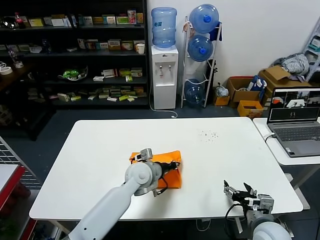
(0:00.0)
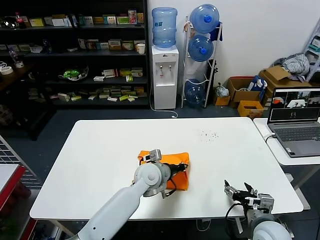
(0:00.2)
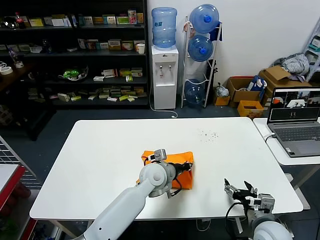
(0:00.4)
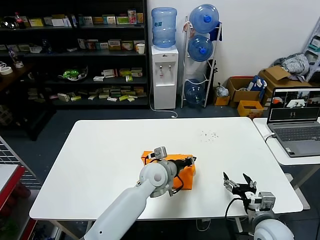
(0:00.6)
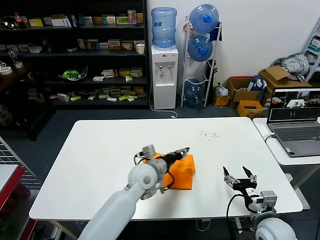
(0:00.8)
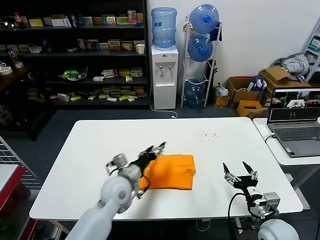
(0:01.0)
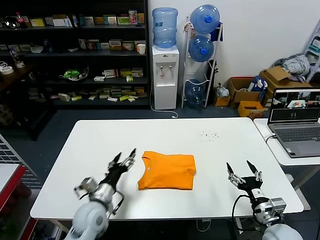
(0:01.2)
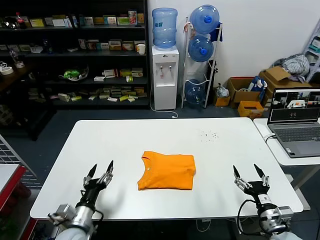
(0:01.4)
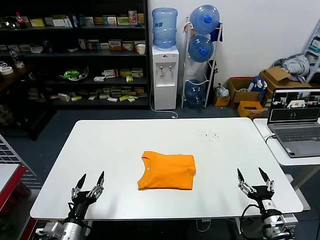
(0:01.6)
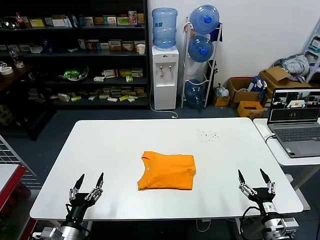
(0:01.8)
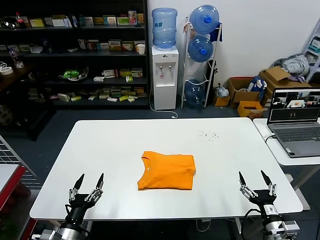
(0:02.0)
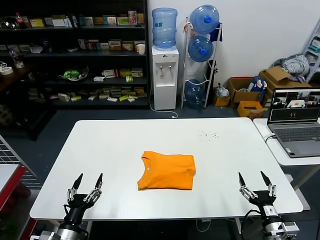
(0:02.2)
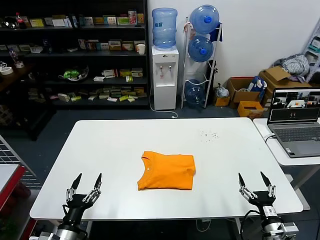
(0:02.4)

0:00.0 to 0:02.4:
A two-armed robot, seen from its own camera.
Task of the whole recording: fold and organize the clothes.
0:00.0 to 0:01.2: The left gripper is displaced to the left and backward by roughly 15 cm, and opens.
0:01.2 to 0:02.4: The left gripper moves backward and to the left, roughly 20 cm. The right gripper is displaced backward by some 5 cm.

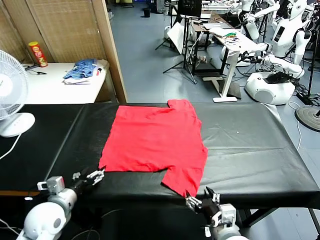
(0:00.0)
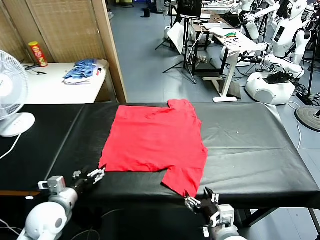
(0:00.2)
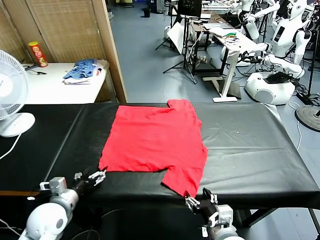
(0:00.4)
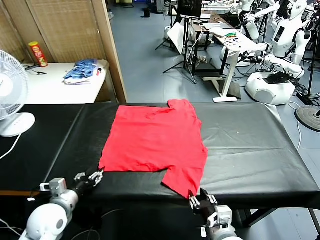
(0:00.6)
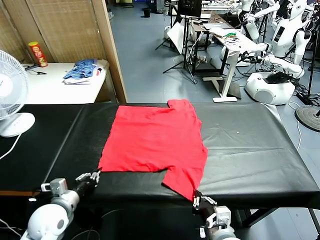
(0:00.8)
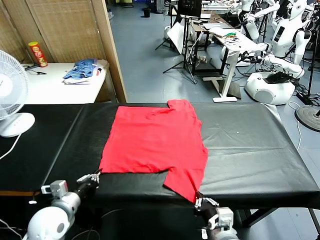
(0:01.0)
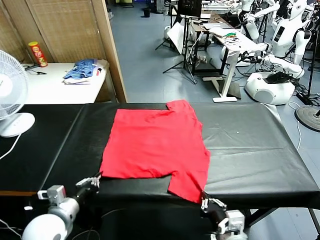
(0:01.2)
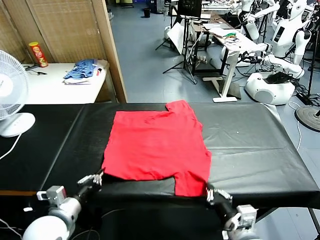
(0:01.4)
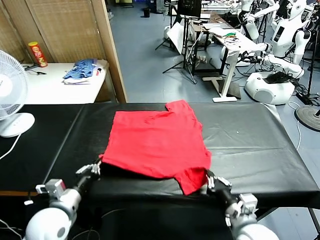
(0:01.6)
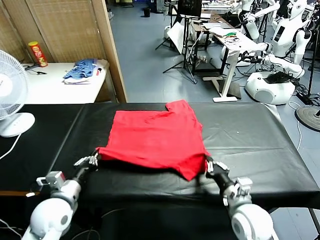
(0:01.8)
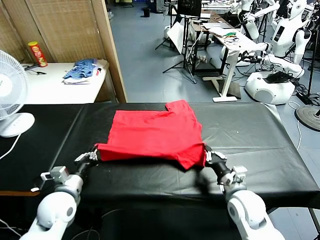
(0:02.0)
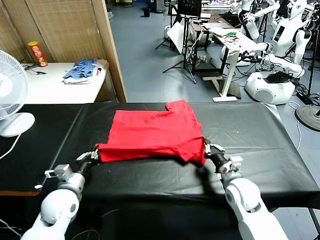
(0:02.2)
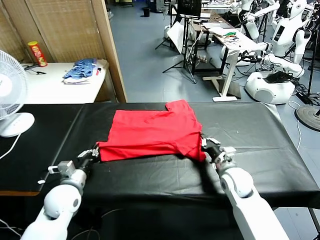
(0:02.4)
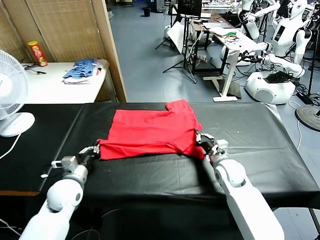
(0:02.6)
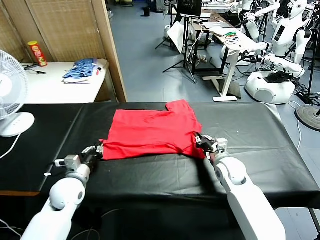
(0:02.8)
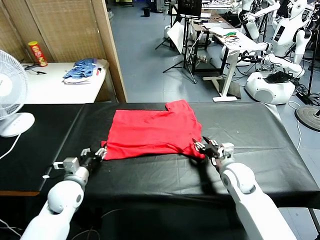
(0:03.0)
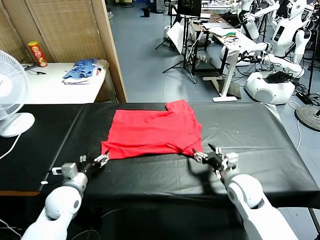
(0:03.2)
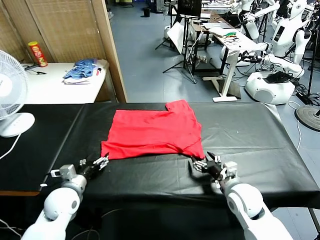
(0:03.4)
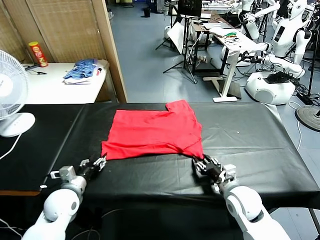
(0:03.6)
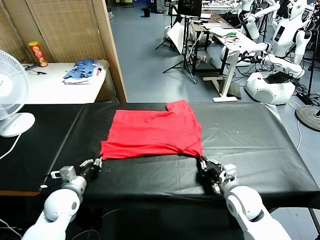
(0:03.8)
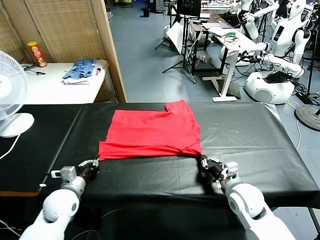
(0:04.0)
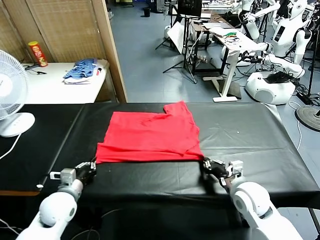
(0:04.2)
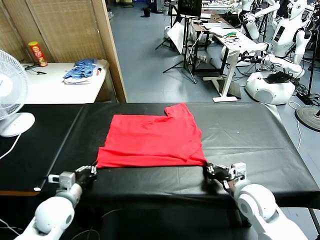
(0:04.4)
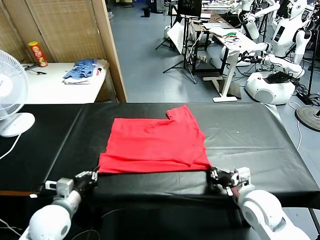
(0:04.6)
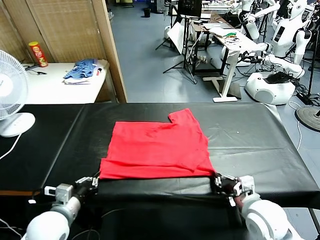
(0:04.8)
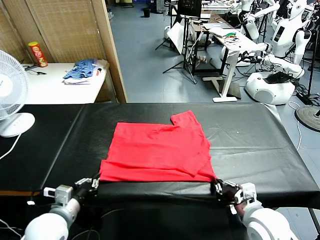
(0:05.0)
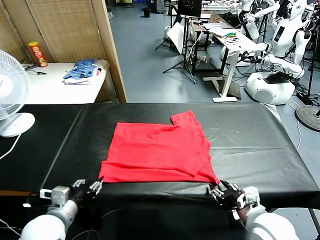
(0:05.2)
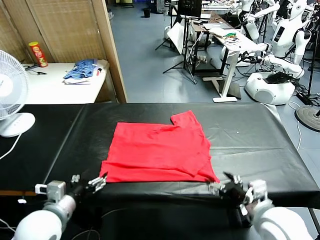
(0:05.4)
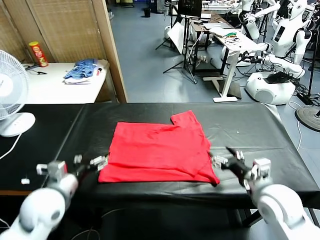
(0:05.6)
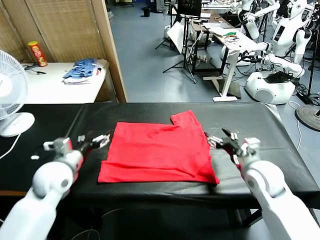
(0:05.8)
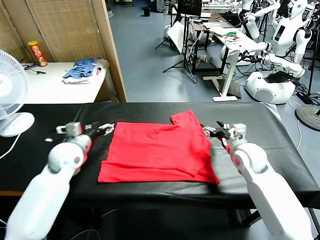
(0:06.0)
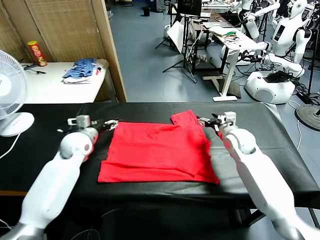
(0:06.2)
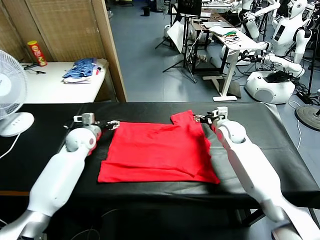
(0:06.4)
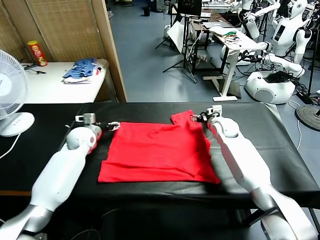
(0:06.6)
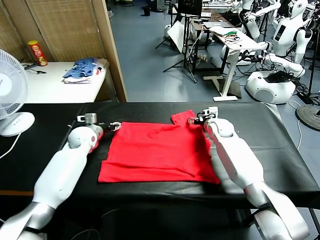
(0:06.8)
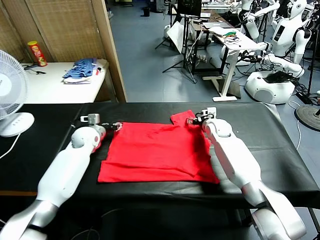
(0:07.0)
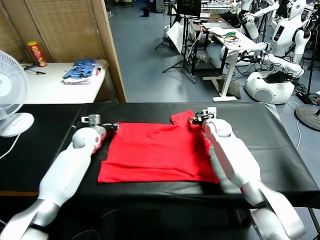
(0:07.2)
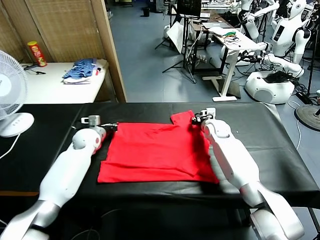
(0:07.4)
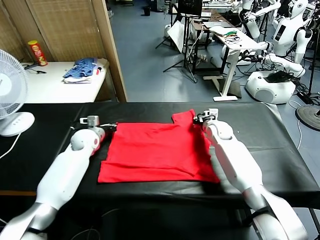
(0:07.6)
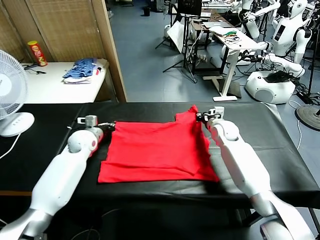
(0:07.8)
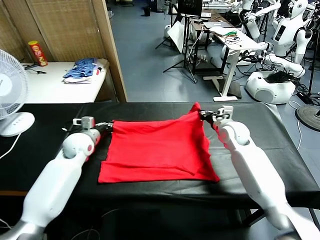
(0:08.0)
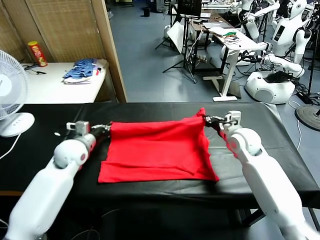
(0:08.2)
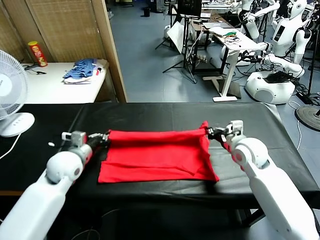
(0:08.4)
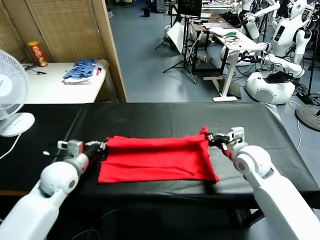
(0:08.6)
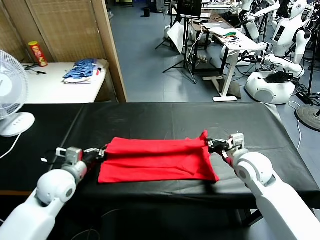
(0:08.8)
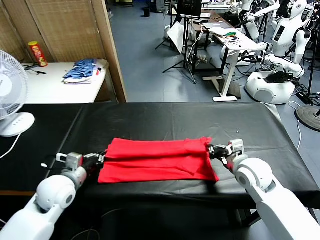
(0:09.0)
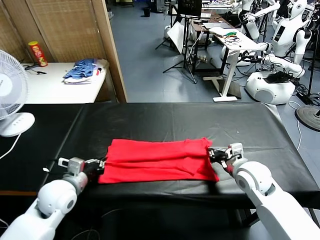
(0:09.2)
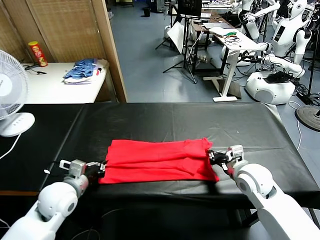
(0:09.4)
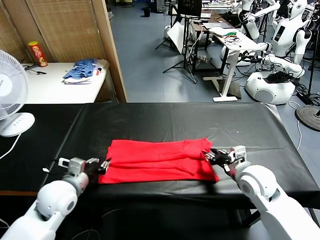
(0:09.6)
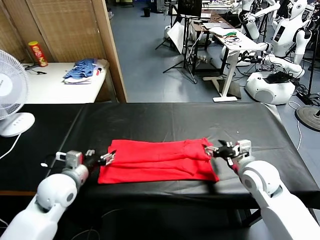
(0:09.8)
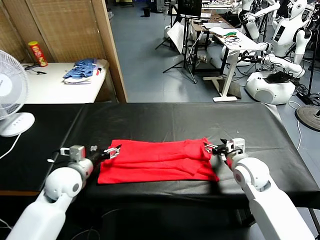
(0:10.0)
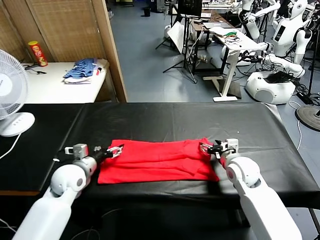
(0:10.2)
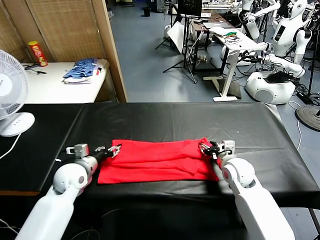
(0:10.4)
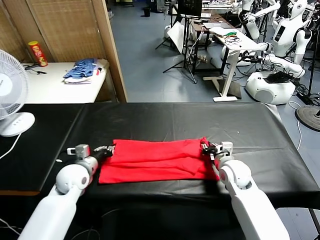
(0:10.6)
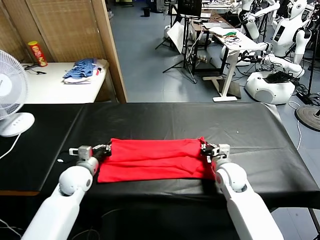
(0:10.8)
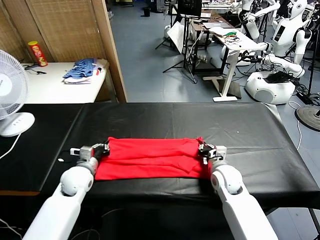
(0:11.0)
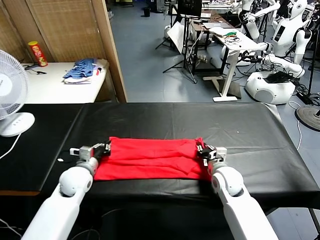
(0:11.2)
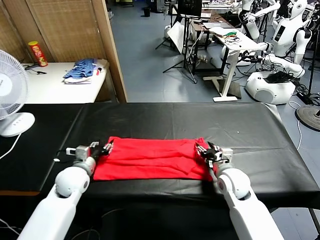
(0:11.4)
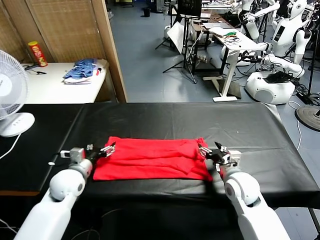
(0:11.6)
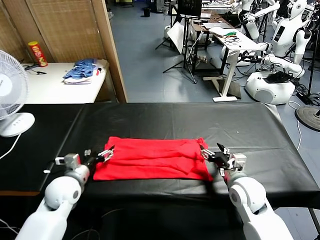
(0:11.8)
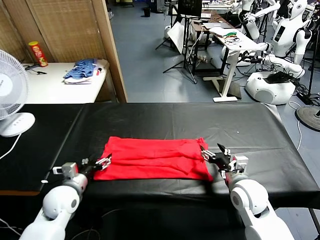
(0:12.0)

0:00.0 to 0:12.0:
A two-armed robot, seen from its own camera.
Task of the whole recording: fold and organize the clothes.
Step, 0:00.0 to 0:00.8: use both grippers simultaneously to clamp the lower edge of the clothing fabric.
Step, 0:01.2 to 0:03.0: use both grippers to drag the lower edge of the fabric forward and fold it over the upper edge.
Step, 0:03.2 to 0:05.2: Drag the clothes downward with both gripper.
Step, 0:05.4 to 0:07.4: use both grippers simultaneously to clamp the upper edge of the clothing fabric.
Step, 0:07.8 to 0:09.6: use both grippers to drag the upper edge of the fabric backward and fold it over the lower edge.
0:01.6 to 0:03.0: The two grippers go roughly 5 cm forward. The right gripper opens its fingers, while the left gripper opens up.
0:03.0 to 0:04.4: The two grippers go some 5 cm backward. The left gripper closes up. The right gripper closes.
0:04.4 to 0:06.0: The right gripper is displaced forward by about 25 cm, and opens up, while the left gripper heads forward and upward, covering approximately 20 cm, and opens.
0:06.0 to 0:07.6: The right gripper heads forward, covering approximately 5 cm, and closes up. The left gripper is displaced forward and downward by some 10 cm, and closes its fingers.
0:07.6 to 0:09.0: The grippers both shift backward by some 20 cm.
0:09.0 to 0:10.4: The left gripper goes approximately 5 cm forward, and opens up. The right gripper shifts roughly 5 cm downward, and opens its fingers.
0:10.4 to 0:12.0: The grippers both shift backward by approximately 10 cm. The right gripper opens its fingers, while the left gripper opens its fingers.

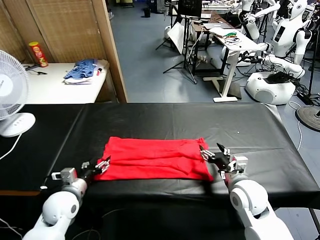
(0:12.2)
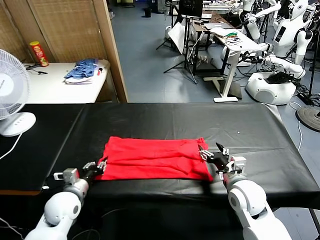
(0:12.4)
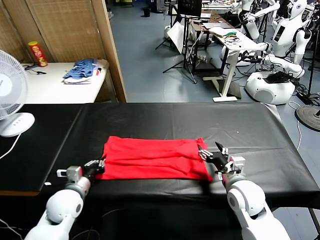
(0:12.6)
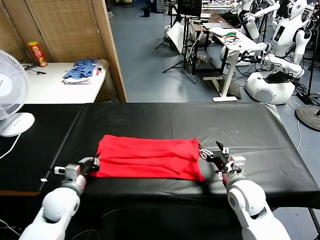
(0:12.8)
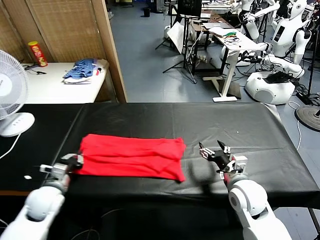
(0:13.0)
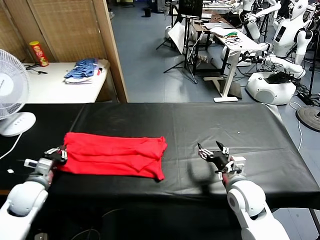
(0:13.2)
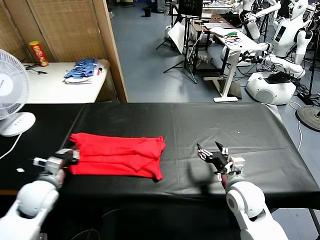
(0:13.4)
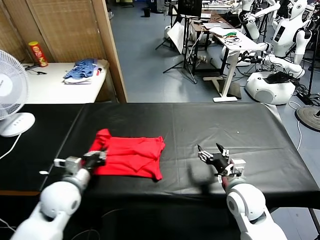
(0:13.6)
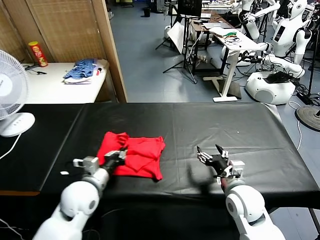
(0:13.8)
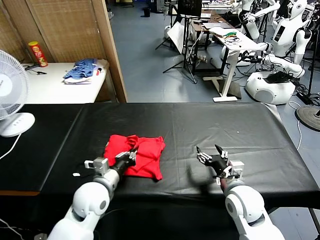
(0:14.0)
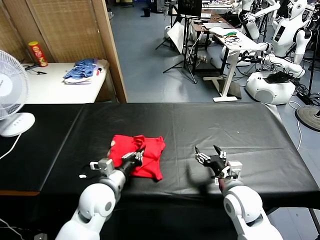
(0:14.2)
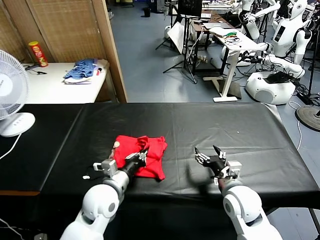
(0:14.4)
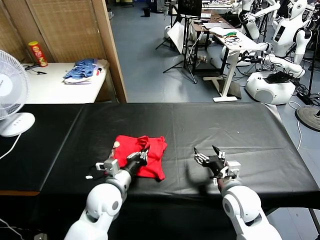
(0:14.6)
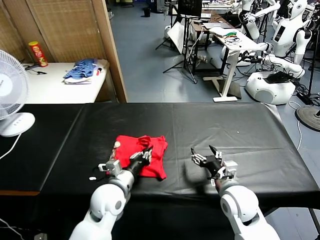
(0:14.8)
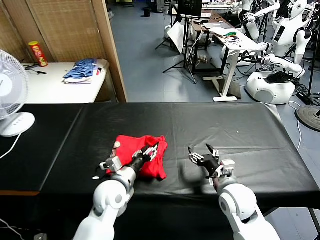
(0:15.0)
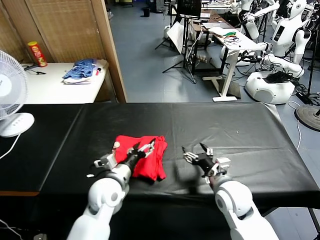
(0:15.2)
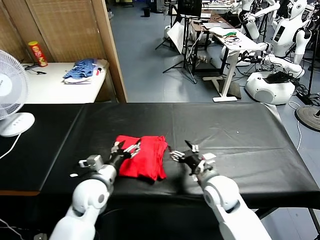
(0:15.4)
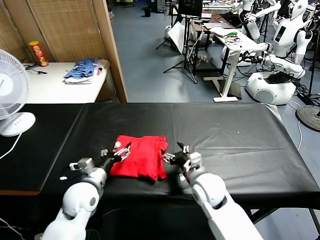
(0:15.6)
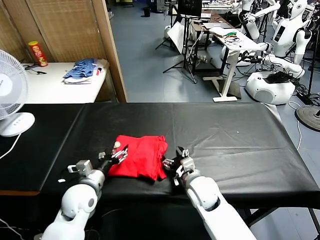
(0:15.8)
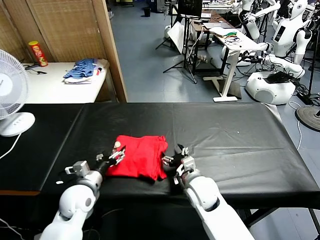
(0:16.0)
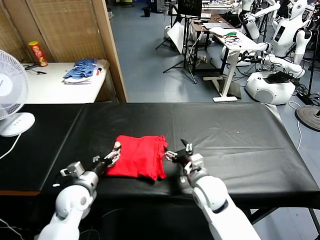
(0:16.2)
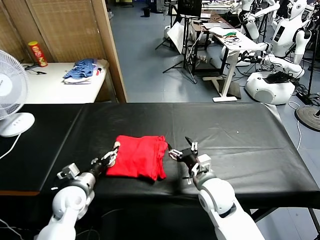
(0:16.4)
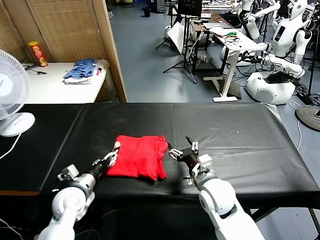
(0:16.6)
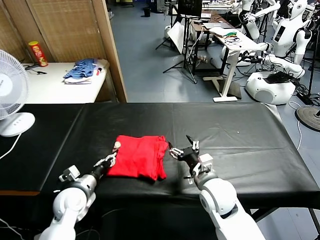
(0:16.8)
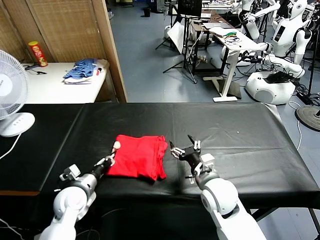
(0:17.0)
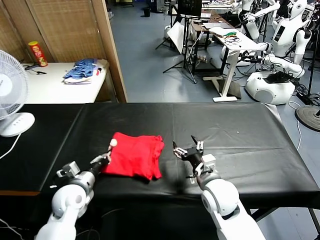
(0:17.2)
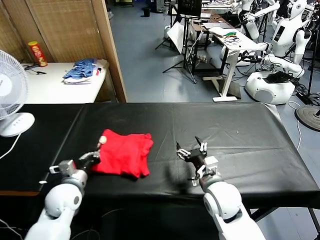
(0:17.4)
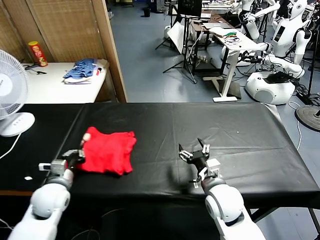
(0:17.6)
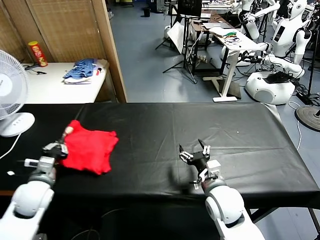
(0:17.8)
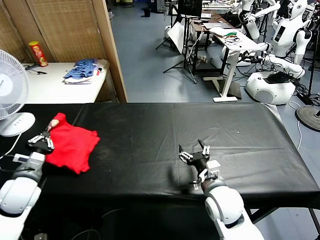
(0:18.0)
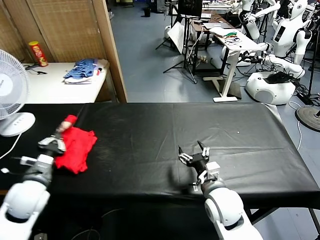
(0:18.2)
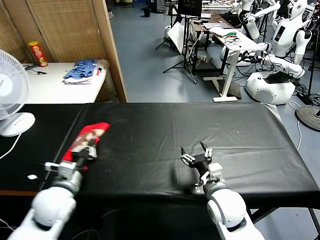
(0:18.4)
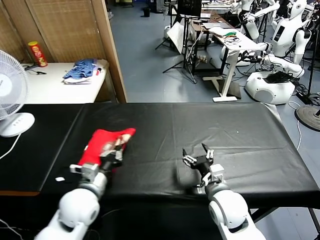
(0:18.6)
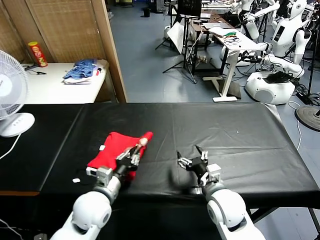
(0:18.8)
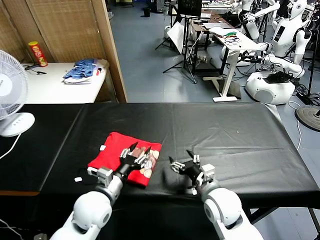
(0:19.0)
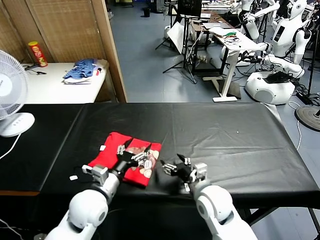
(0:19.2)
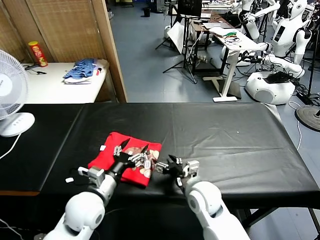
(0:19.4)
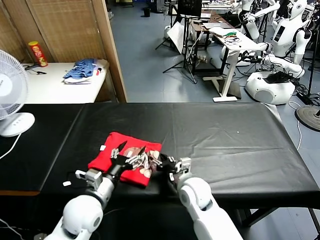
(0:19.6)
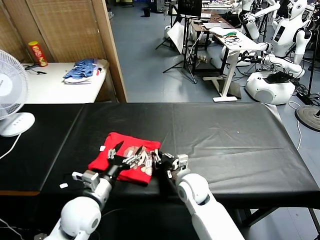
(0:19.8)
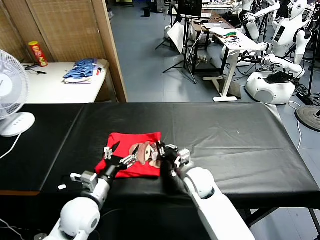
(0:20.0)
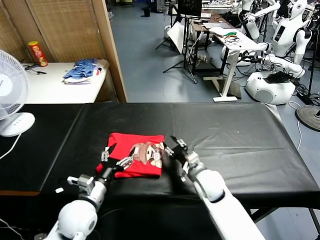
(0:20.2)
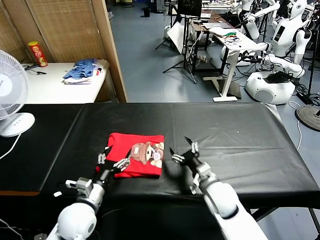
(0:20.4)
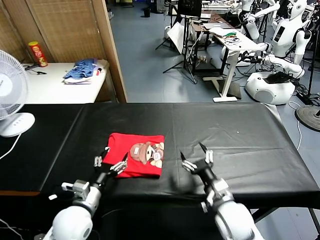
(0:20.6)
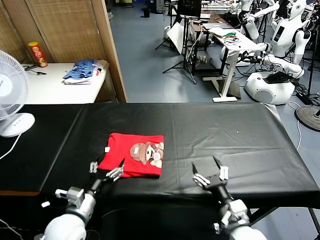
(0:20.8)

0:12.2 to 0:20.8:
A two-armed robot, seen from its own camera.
Task of the whole recording: fold and organize the clothes.
Step, 0:12.8 to 0:15.0: use the left gripper to drag the left edge of the fabric to the left and folds it over the right edge.
Step, 0:15.2 to 0:19.0: Flip the folded clothes over with left gripper.
Step, 0:19.2 to 0:20.2: Drag the clothes to the center of the table.
0:12.2 to 0:13.6: The left gripper moves upward, some 5 cm, travels to the left and back again, some 10 cm each way, and closes.
0:13.6 to 0:15.0: The left gripper moves to the right, roughly 15 cm, and opens.
0:15.0 to 0:16.6: The right gripper goes approximately 5 cm to the left; the left gripper travels to the left by about 15 cm.
0:16.6 to 0:18.0: The left gripper shifts approximately 15 cm to the left and upward, and closes its fingers.
0:18.0 to 0:19.4: The right gripper shifts by approximately 5 cm. The left gripper shifts roughly 20 cm to the right, and opens its fingers.
0:19.4 to 0:20.8: The left gripper shifts by about 5 cm, while the right gripper goes approximately 15 cm backward and to the right, and closes, then reopens.
